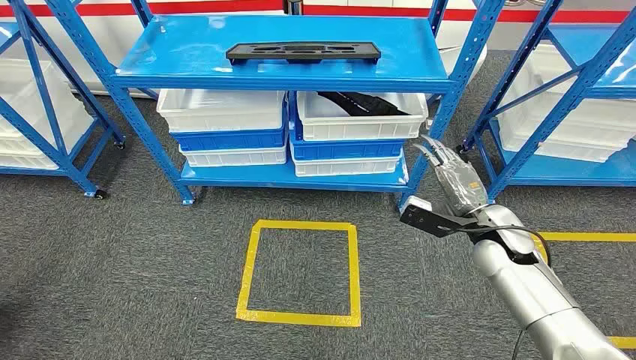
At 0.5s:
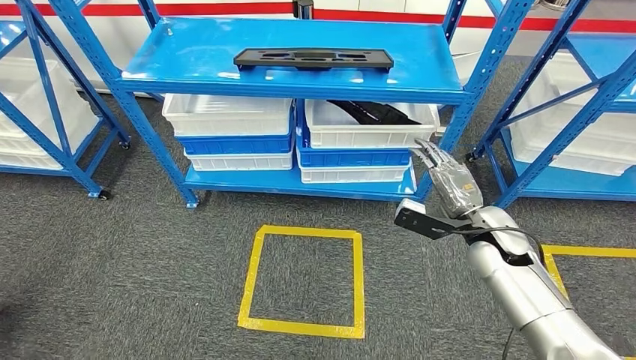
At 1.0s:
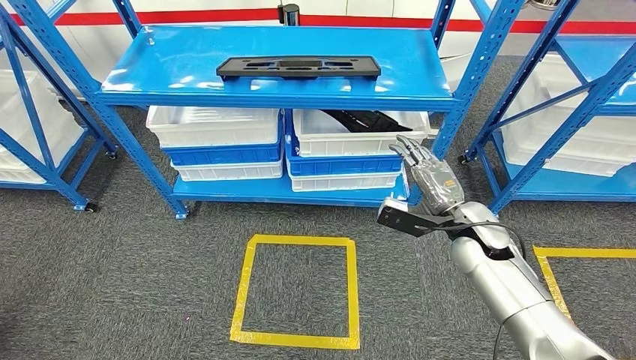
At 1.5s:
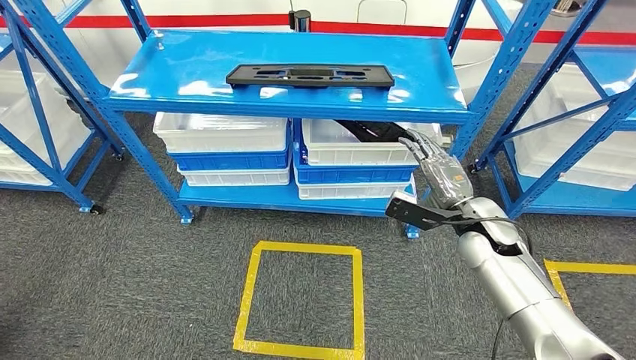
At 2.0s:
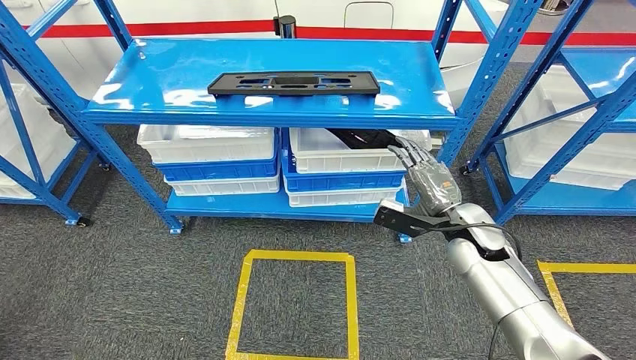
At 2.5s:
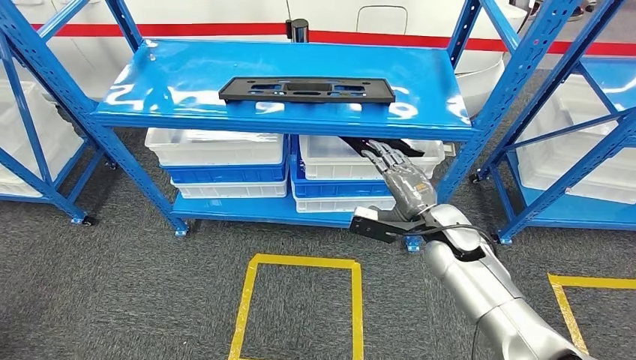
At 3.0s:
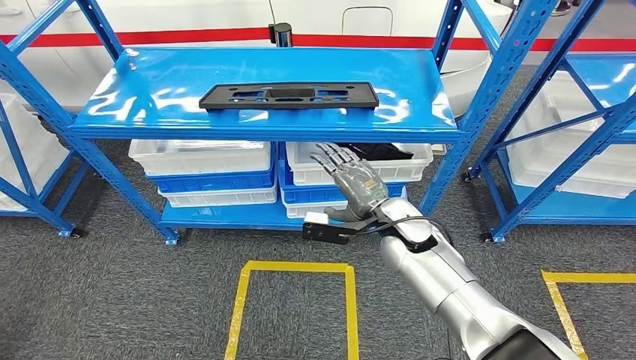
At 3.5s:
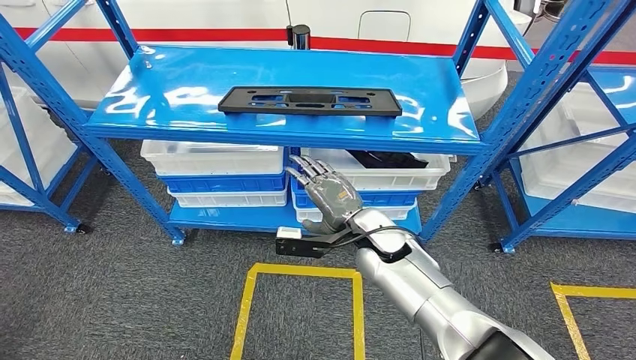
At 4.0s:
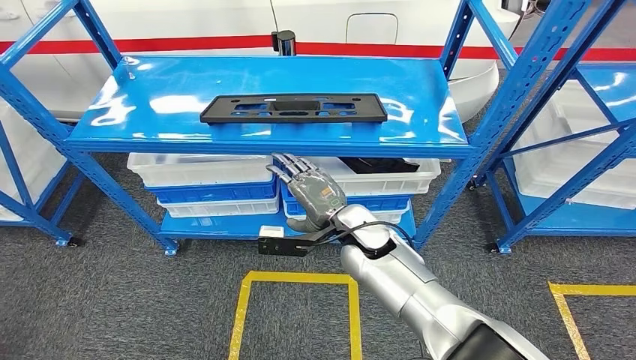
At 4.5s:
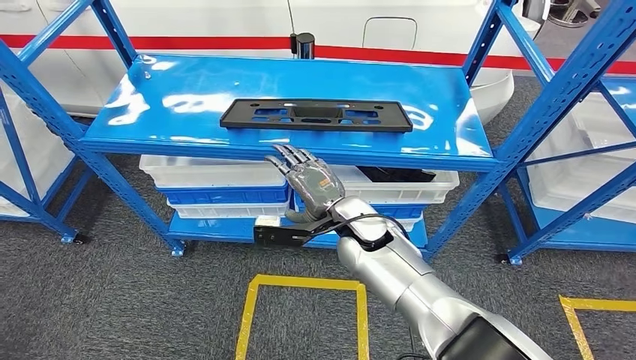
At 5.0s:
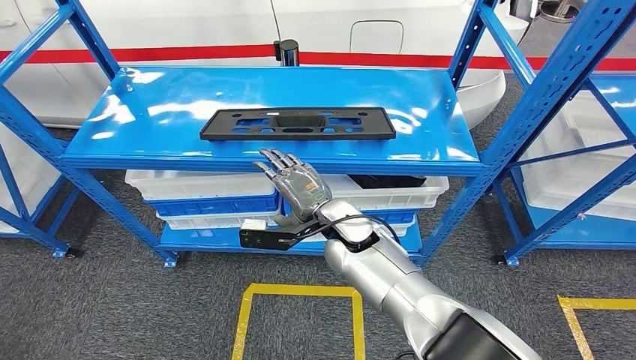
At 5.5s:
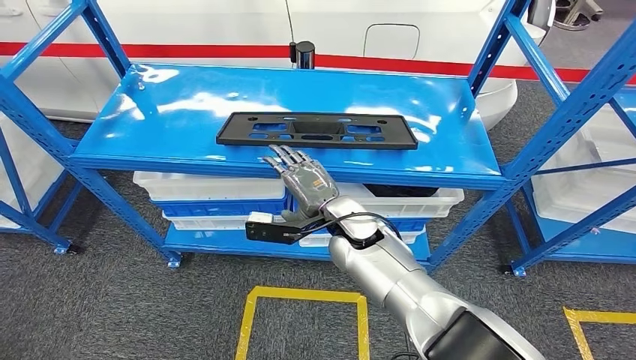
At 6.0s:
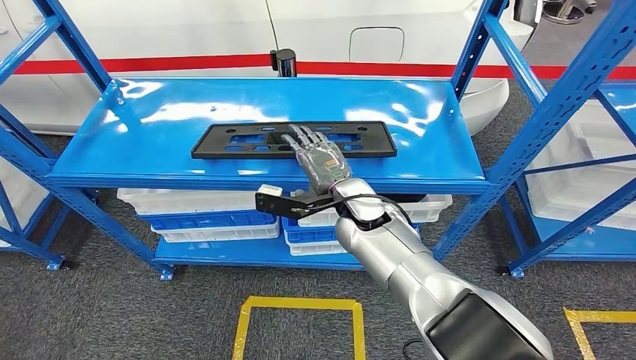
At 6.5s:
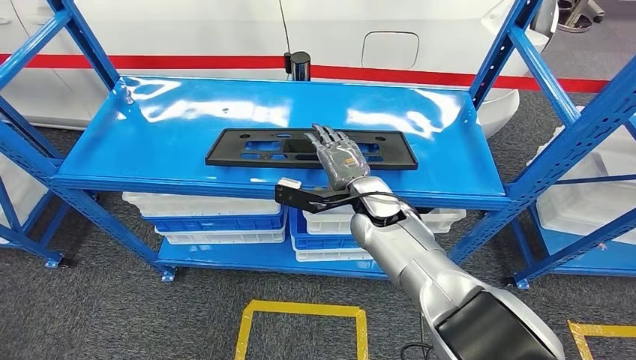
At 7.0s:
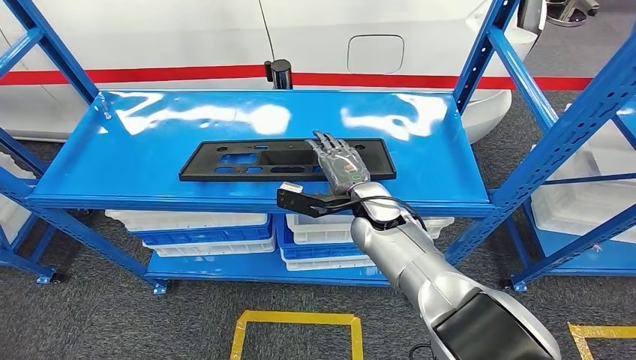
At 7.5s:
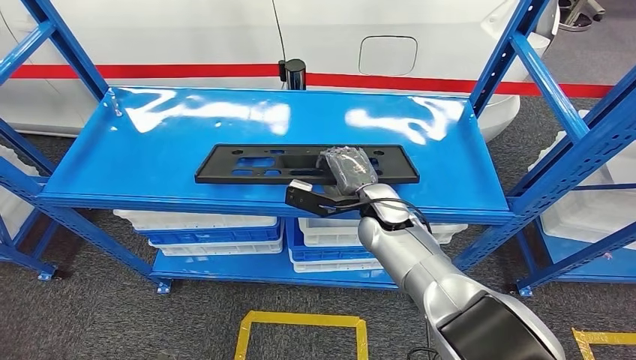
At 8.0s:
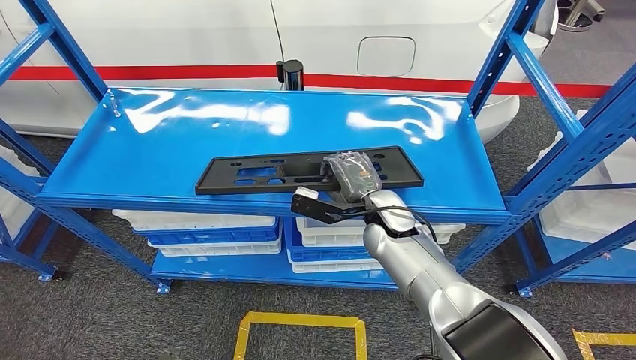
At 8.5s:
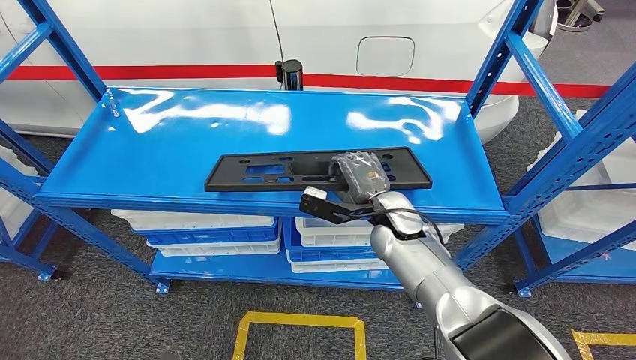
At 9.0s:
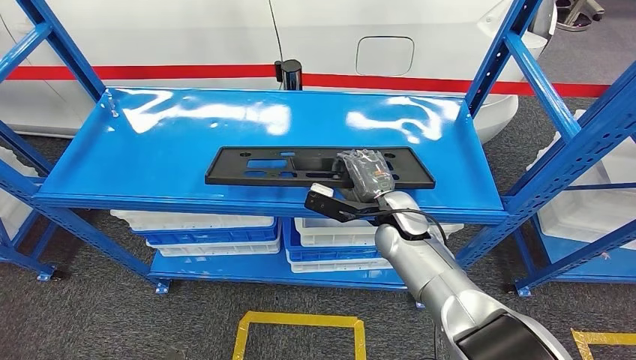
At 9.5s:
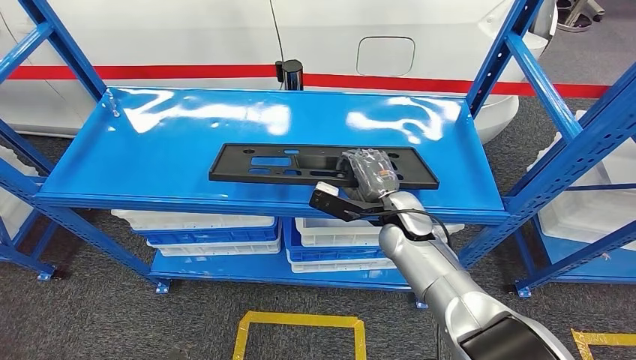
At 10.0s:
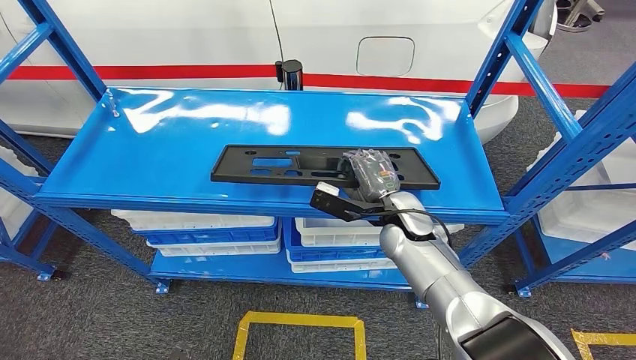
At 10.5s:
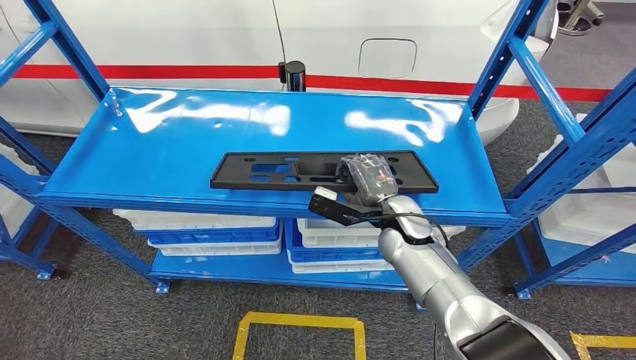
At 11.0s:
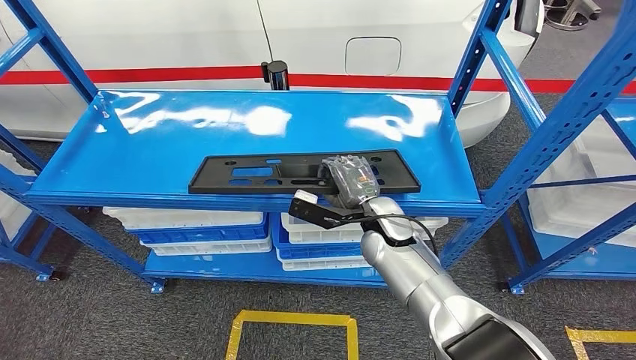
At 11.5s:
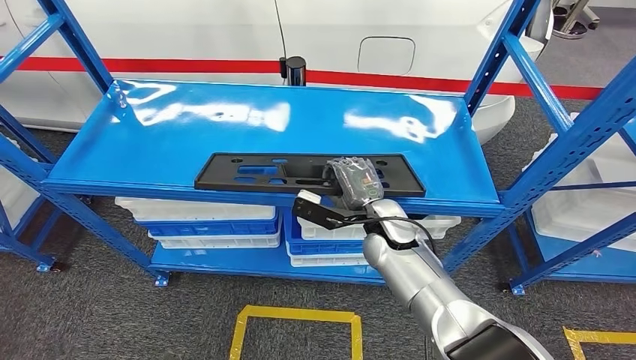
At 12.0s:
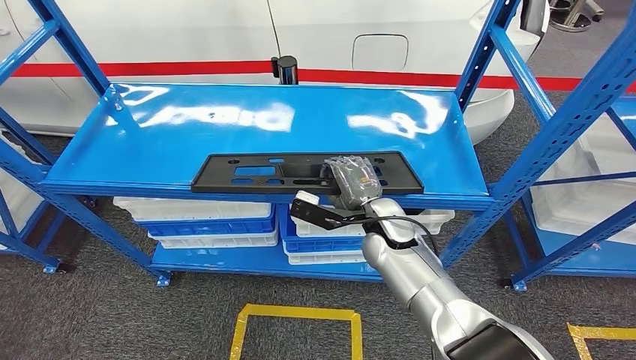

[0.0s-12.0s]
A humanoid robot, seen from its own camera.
8.0s to 10.0s: The hands move only a little.

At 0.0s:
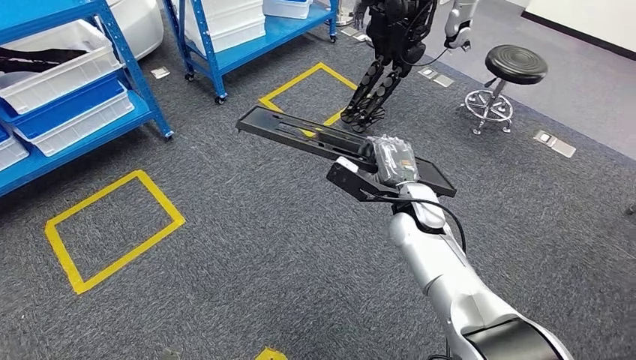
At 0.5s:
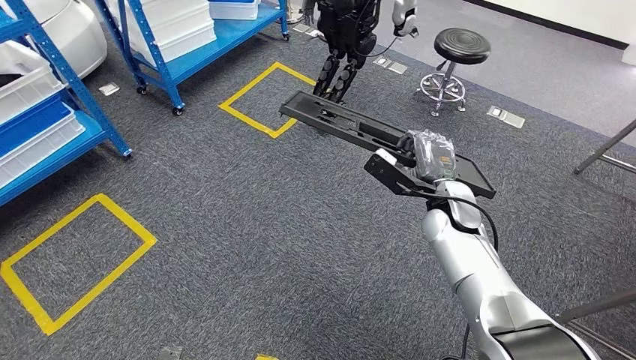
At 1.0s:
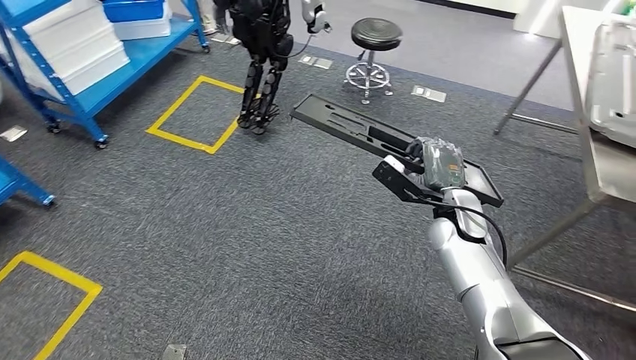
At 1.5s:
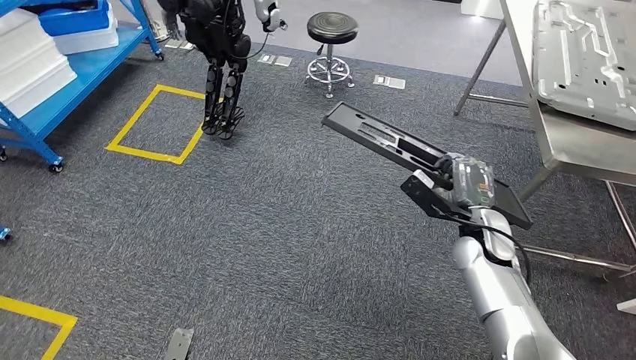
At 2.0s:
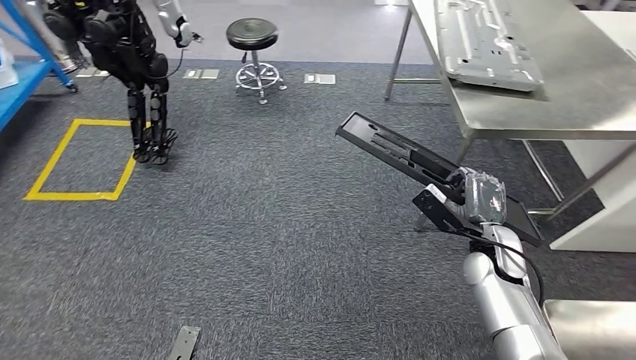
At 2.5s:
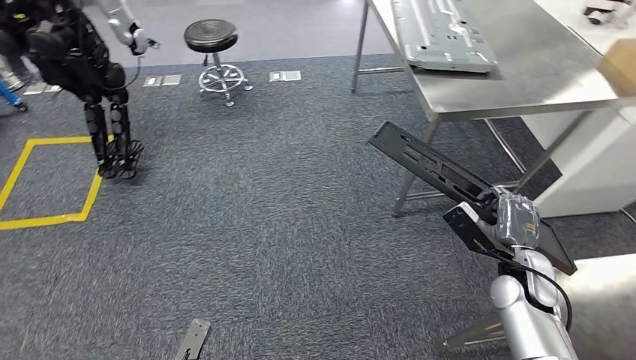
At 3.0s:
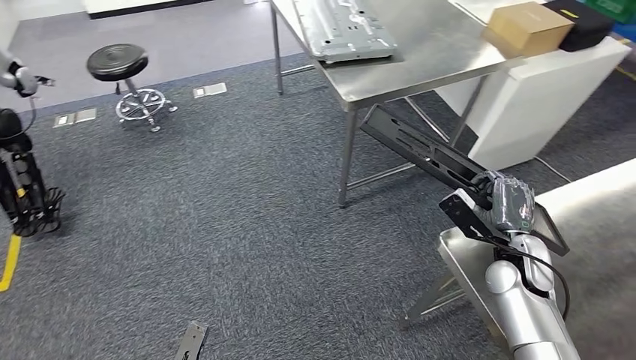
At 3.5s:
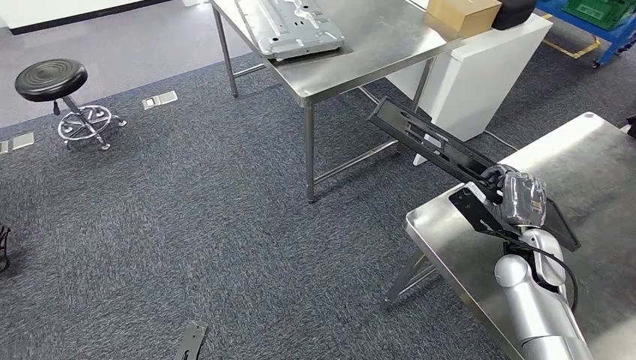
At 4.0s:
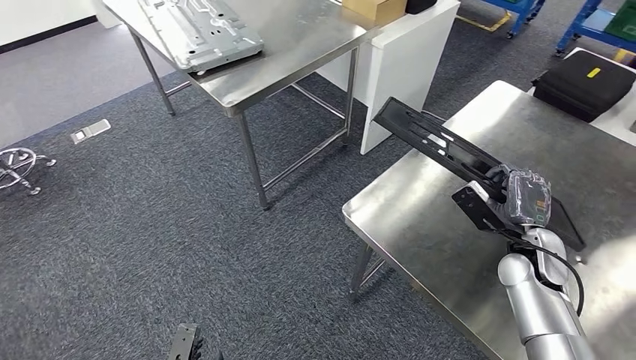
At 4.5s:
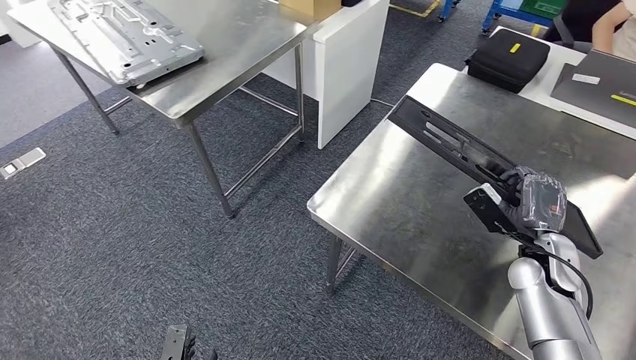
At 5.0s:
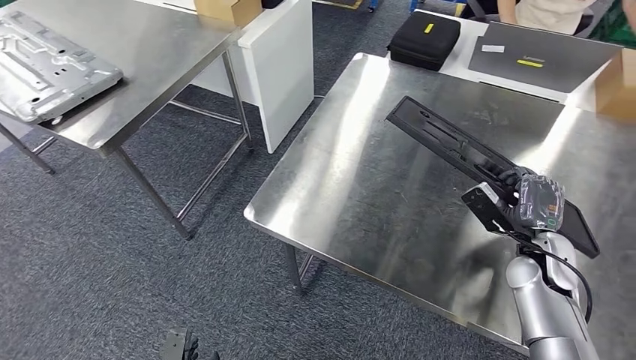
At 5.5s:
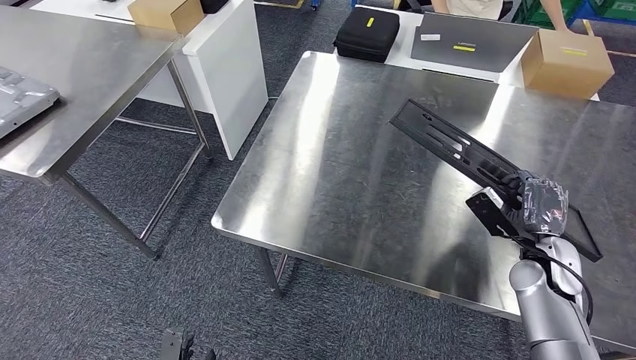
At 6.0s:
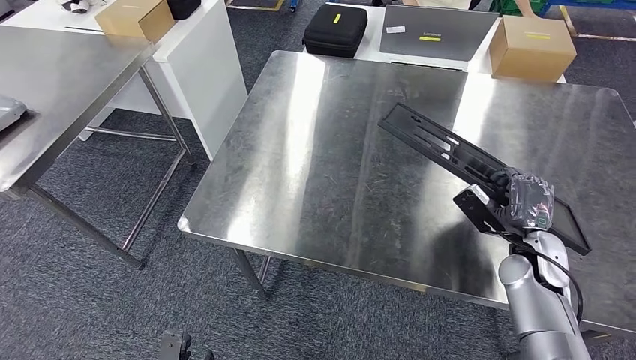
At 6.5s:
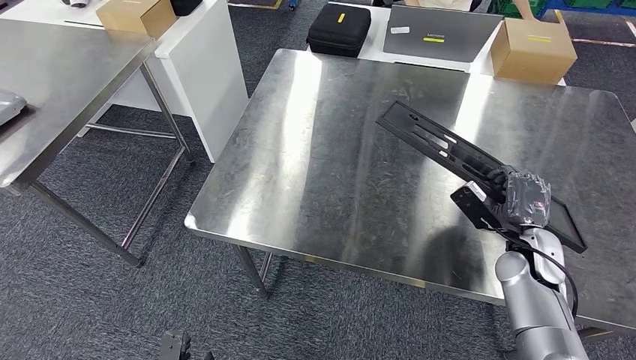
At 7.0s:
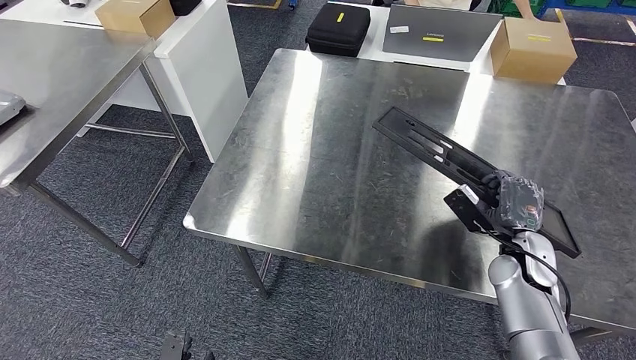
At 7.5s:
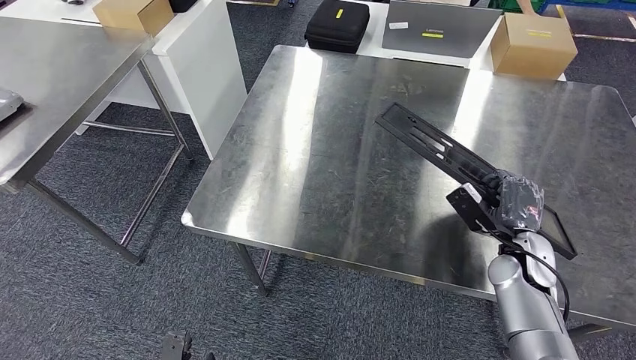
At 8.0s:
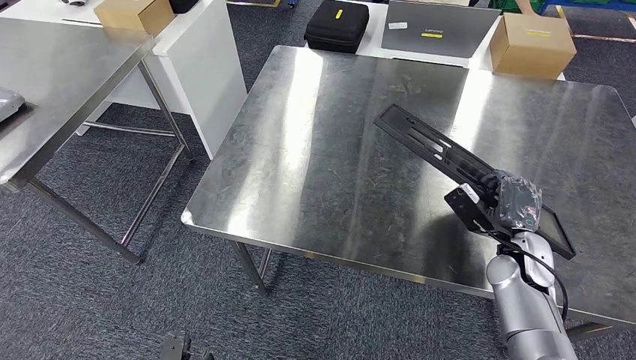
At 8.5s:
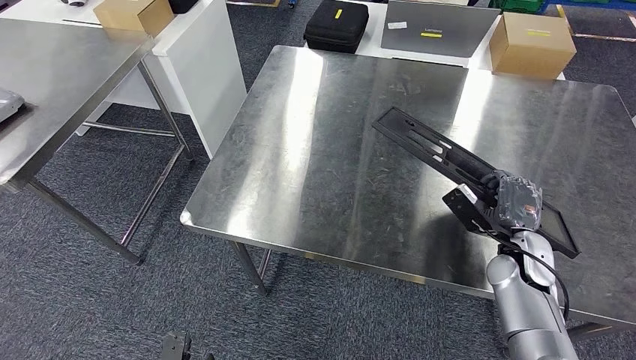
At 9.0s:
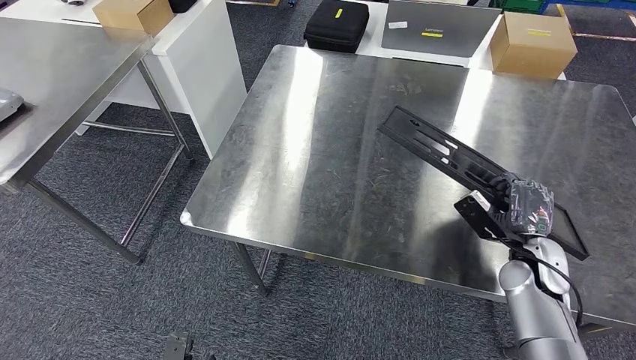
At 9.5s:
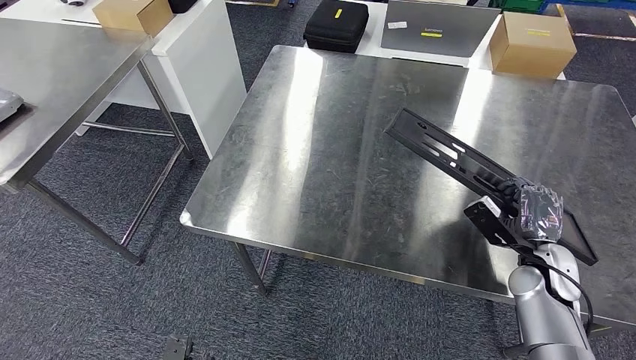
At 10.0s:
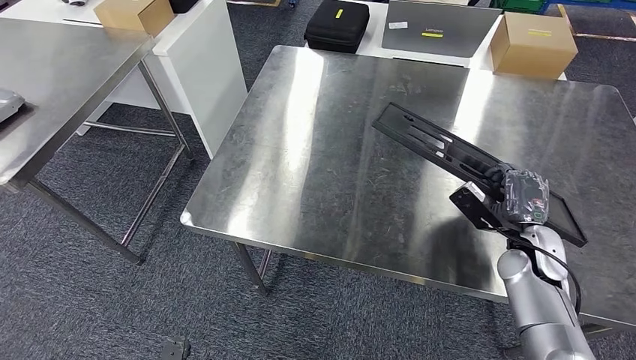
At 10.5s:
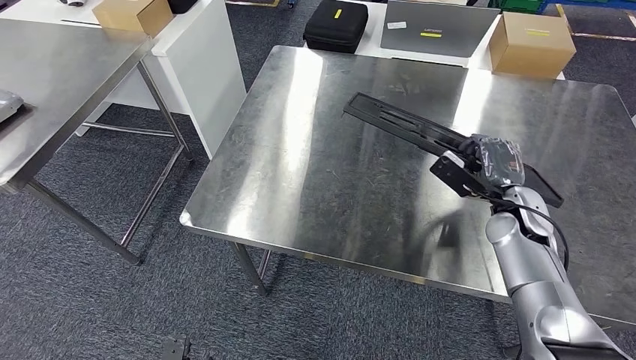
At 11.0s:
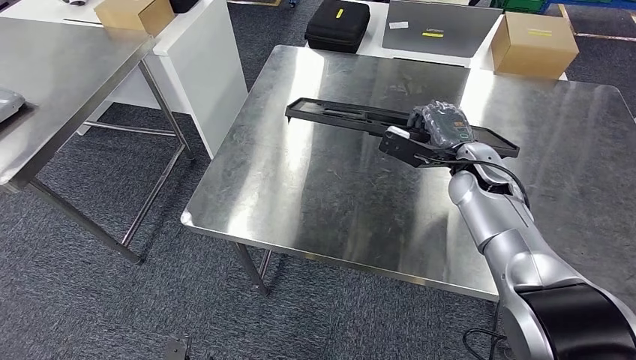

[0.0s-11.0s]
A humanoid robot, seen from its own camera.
Step, 0.0s to 2.0s: Move the large material to the workbench.
7.5s to 9.0s: There are only small adjustments of the hands.
9.0s to 11.0s: The right hand shifts about 20 cm forward, upward and to the left.
